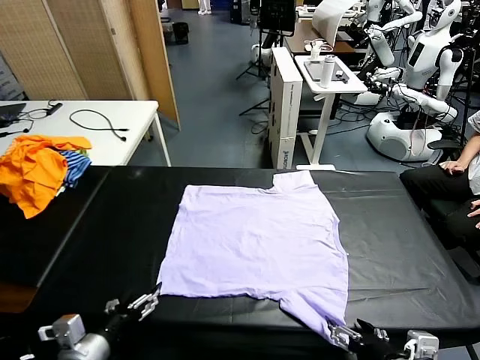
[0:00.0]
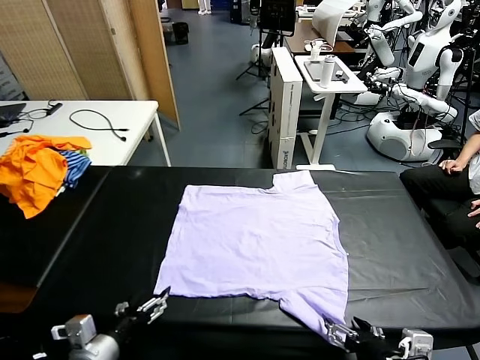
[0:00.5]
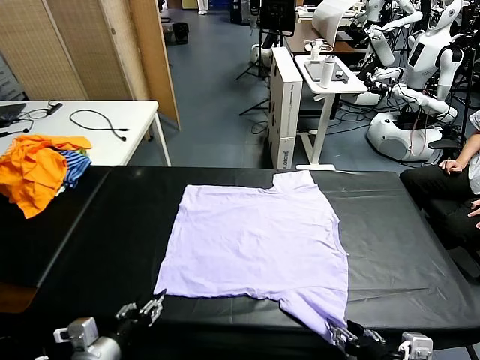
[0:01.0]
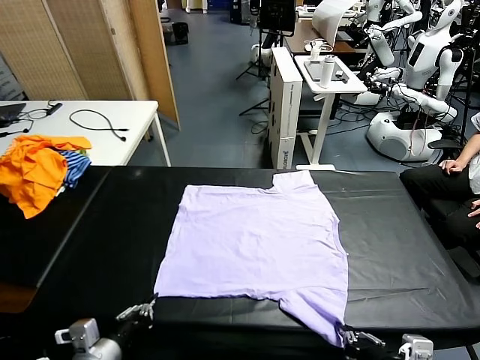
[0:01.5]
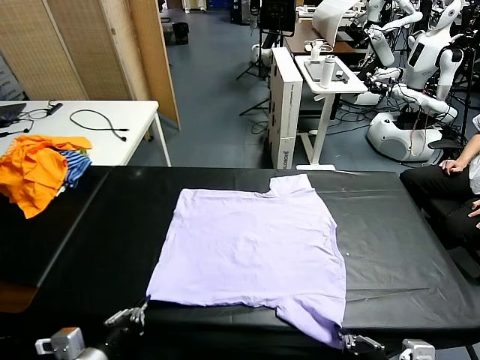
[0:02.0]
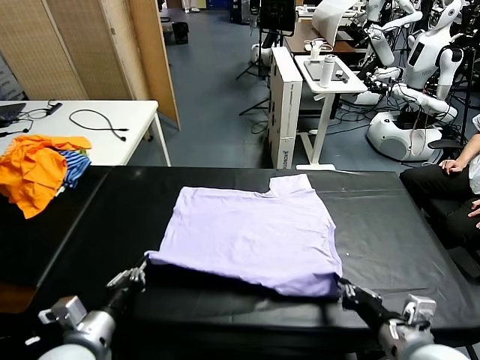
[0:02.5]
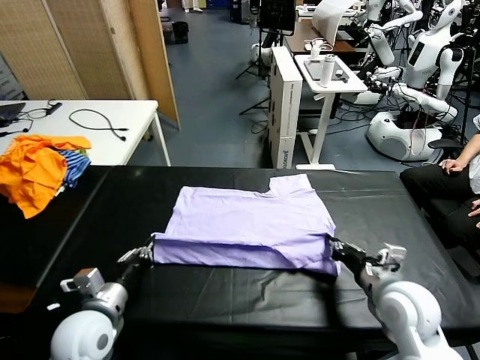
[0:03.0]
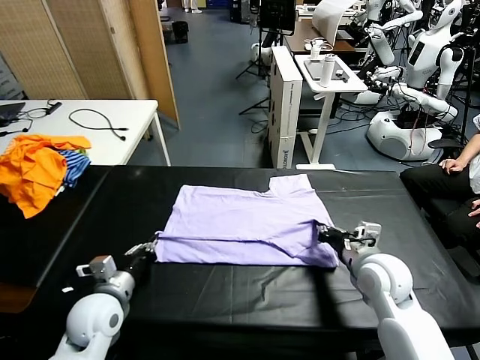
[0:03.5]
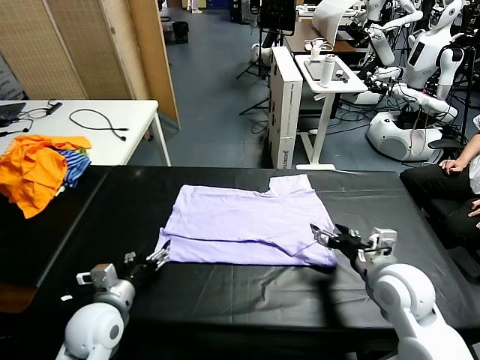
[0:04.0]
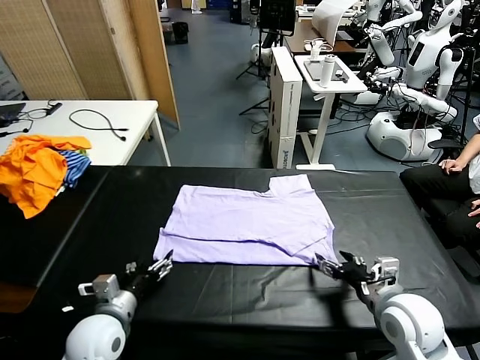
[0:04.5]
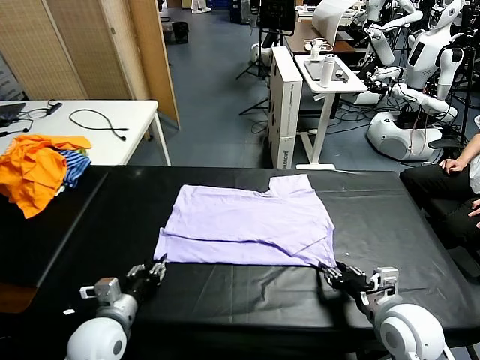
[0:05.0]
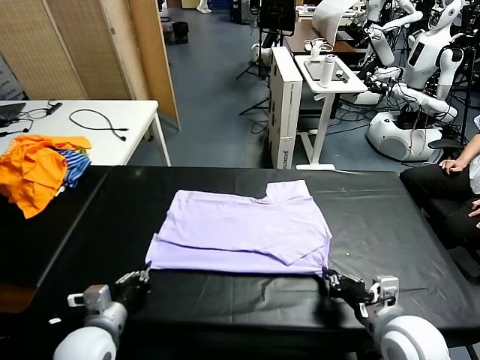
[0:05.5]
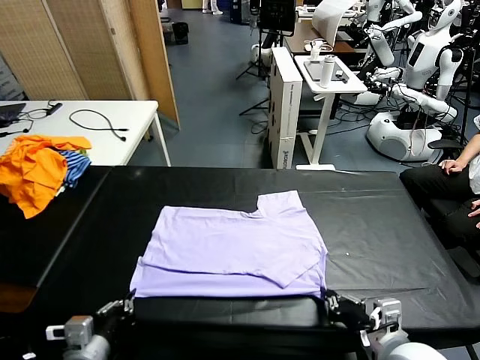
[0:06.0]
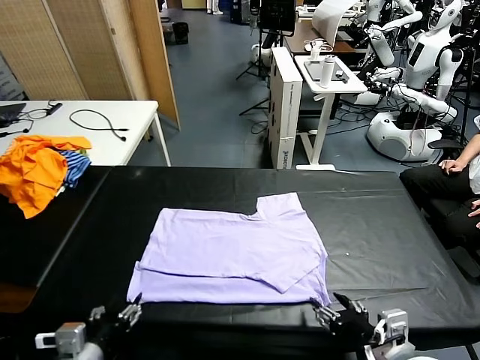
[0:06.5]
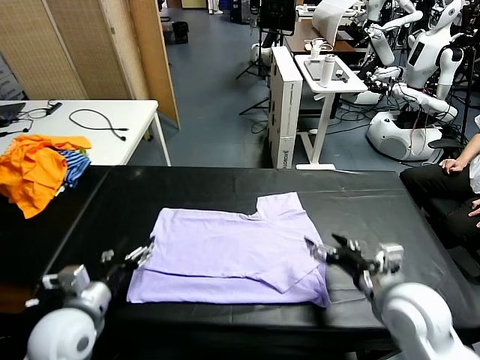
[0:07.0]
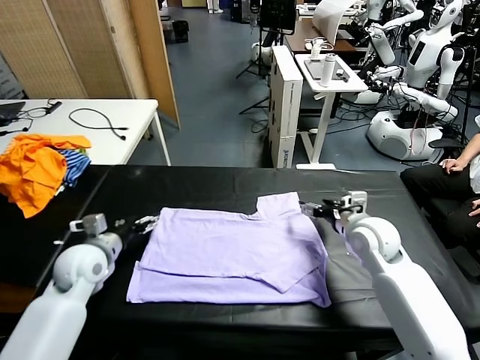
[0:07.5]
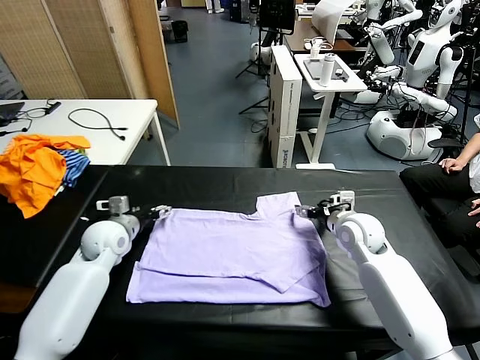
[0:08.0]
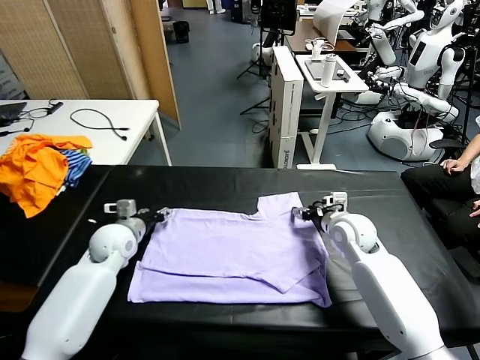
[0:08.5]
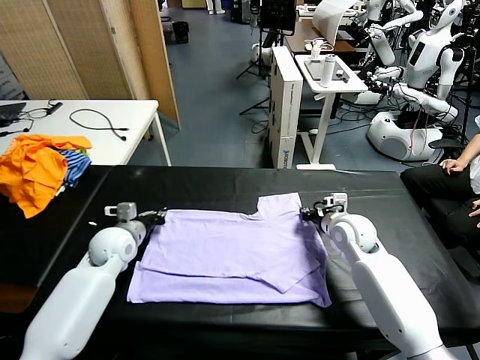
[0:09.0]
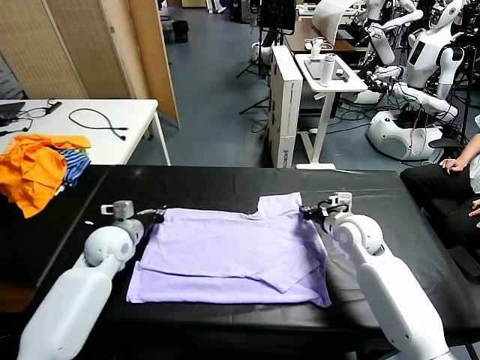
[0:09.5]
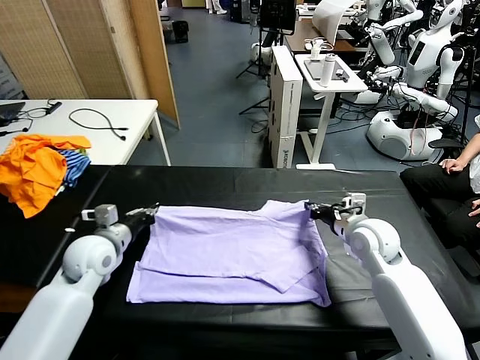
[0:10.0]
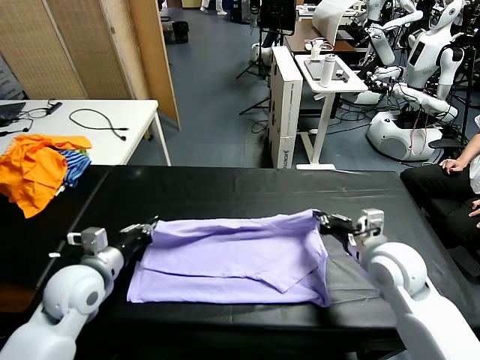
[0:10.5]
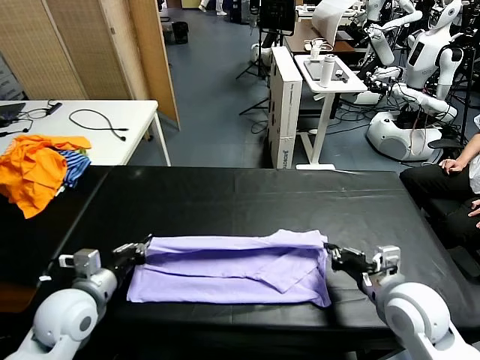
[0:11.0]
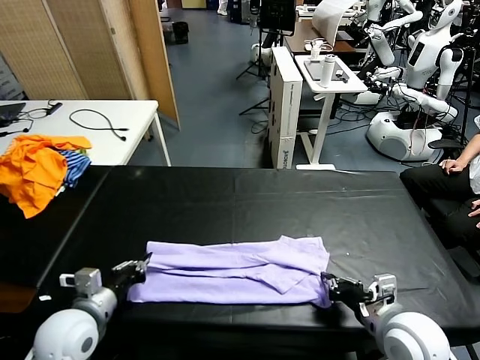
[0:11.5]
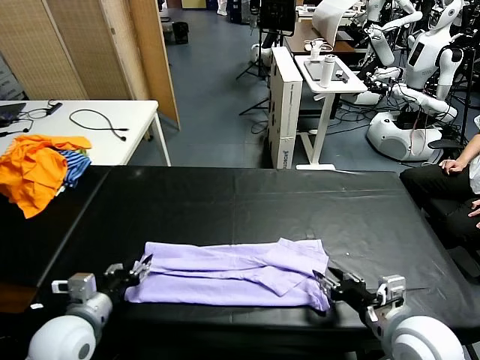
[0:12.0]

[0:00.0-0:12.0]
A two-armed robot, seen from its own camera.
Task of the whole recording: fold and organize the clothes.
Step, 0.0 to 1.5 s: use both grippers simultaneously to clamp the lower edge of the clothing fabric.
Step, 2.0 to 3.5 s: use both grippers to drag the lower edge of the fabric forward and fold it over the upper edge.
Step, 4.0 to 6.5 s: Drag the clothes downward with both gripper.
Step, 7.0 to 9.0 s: use both grippers simultaneously to clamp the upper edge of the clothing fabric.
2.0 to 4.0 s: The left gripper goes approximately 15 cm forward and downward, and opens up. The right gripper goes approximately 15 cm forward, and opens its fingers.
4.0 to 6.0 s: The two grippers go roughly 10 cm backward. The left gripper closes, while the right gripper closes.
6.0 to 8.0 s: Both grippers move forward, approximately 30 cm. The left gripper opens. Meanwhile the right gripper opens its fingers.
8.0 to 10.0 s: The grippers both shift backward by approximately 5 cm. The right gripper closes its fingers. Meanwhile the left gripper closes.
10.0 to 12.0 s: Both grippers move backward, roughly 15 cm. The left gripper opens. Meanwhile the right gripper opens up.

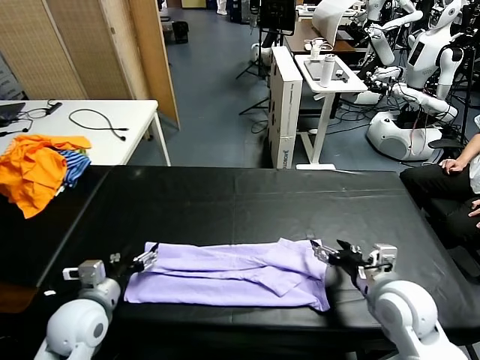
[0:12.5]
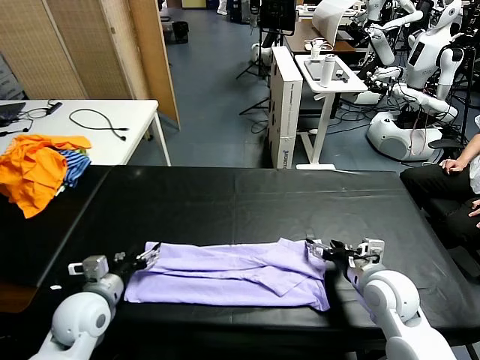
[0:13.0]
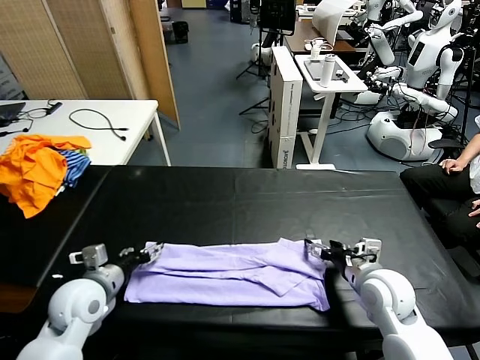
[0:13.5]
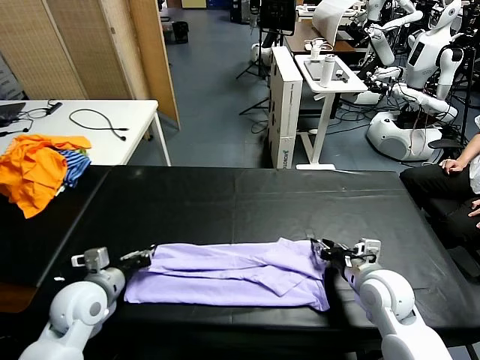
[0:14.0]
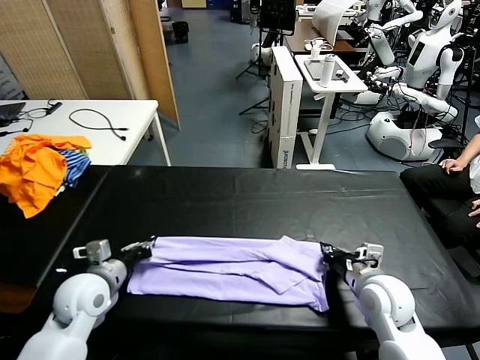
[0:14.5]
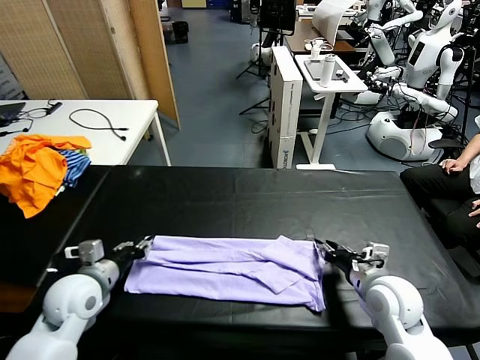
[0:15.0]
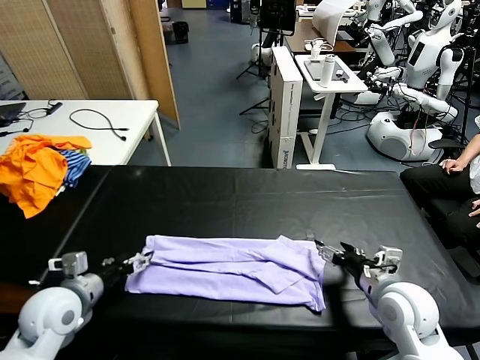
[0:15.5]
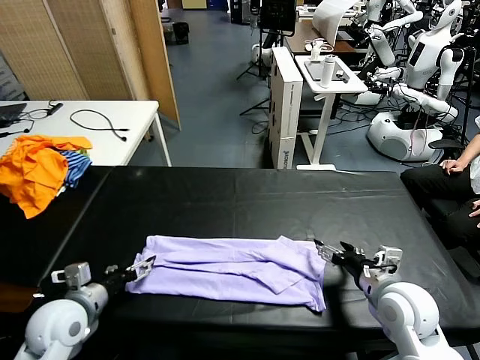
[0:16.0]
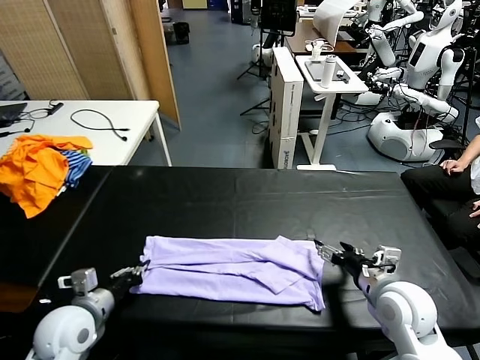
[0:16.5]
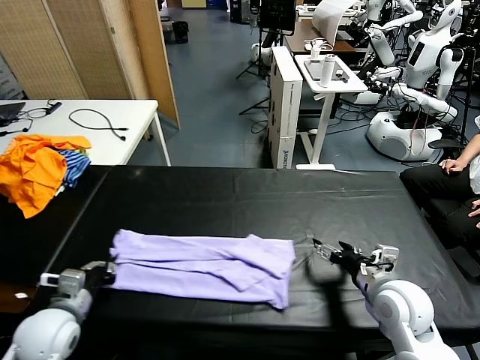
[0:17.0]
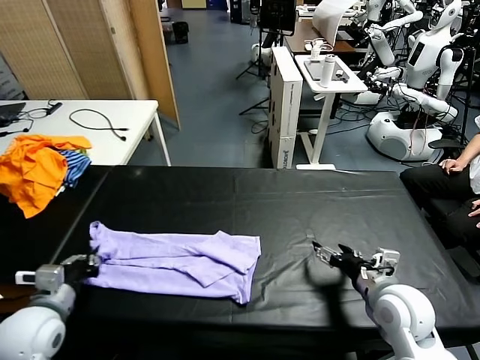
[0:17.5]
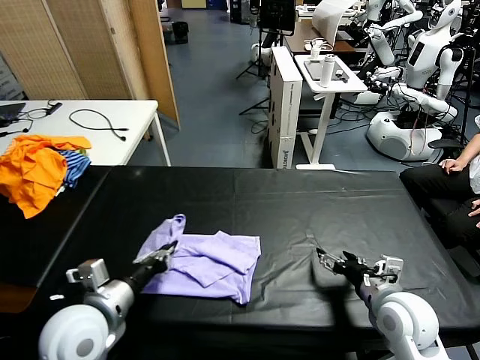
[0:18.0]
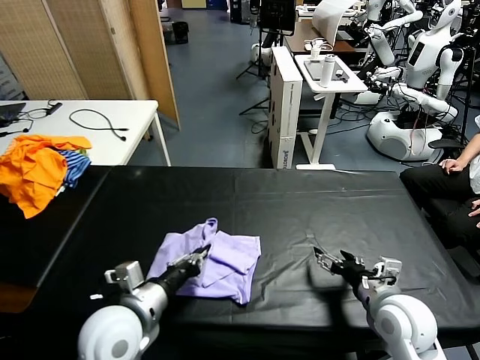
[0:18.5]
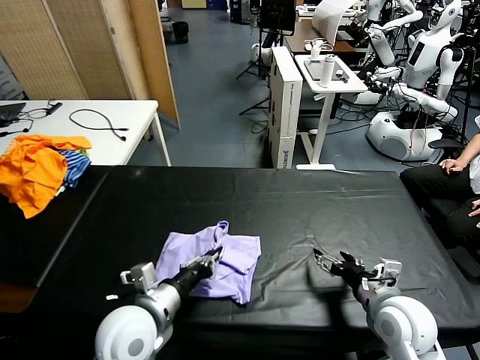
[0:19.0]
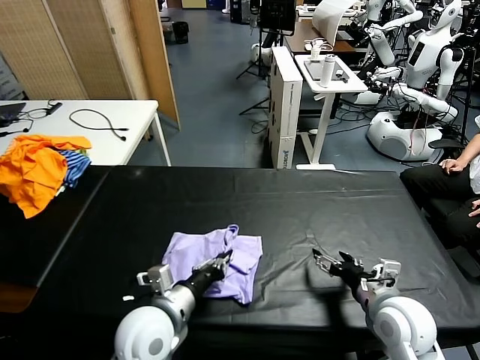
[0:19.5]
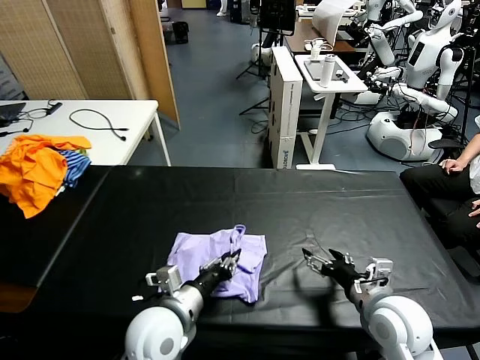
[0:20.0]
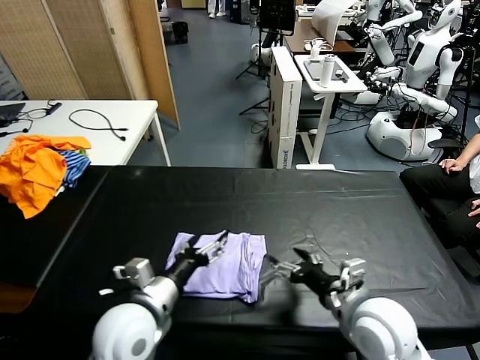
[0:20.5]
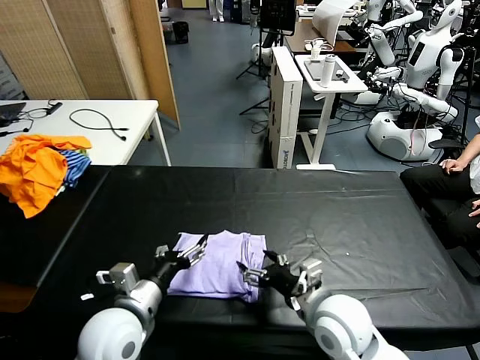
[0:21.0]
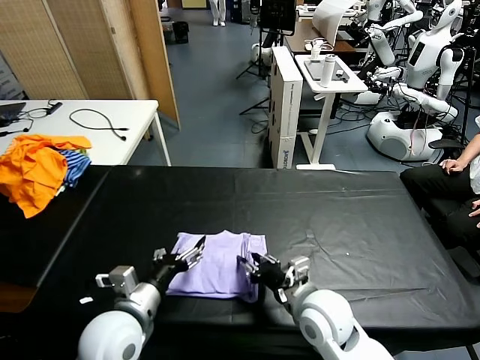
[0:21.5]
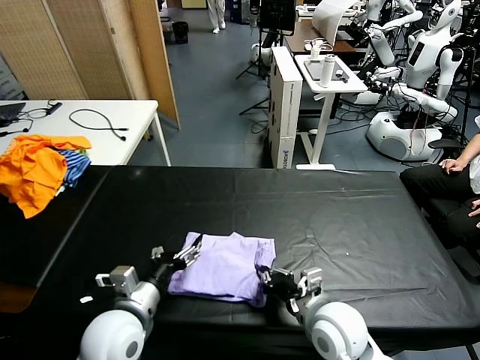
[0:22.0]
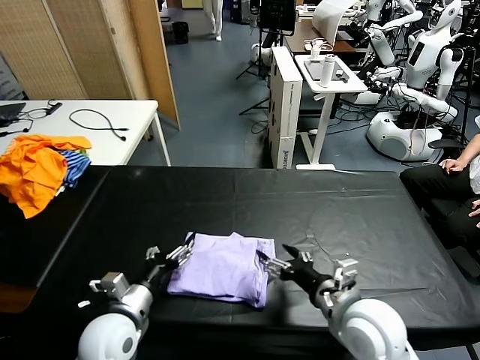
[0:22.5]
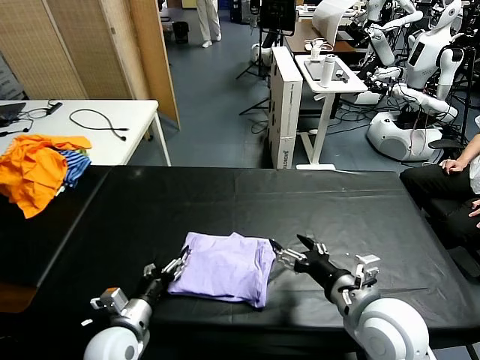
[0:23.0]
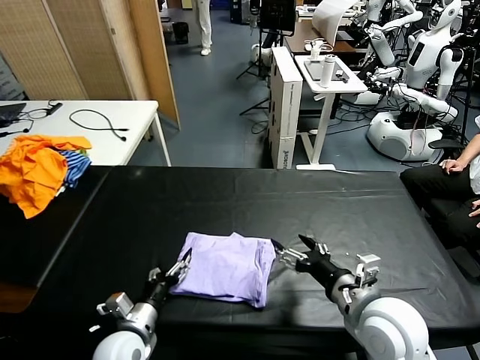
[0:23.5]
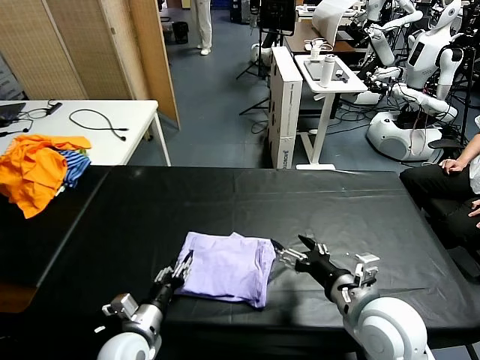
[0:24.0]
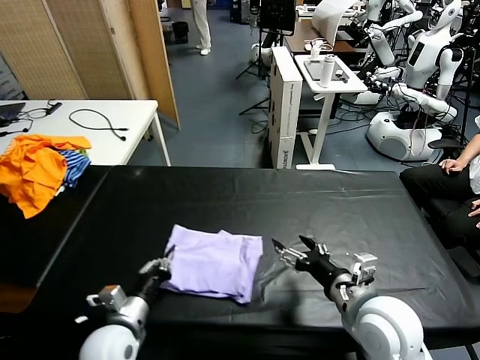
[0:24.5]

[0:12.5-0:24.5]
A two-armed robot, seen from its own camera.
Task of the whole recording: fold and organize the clothes.
Step, 12.5 to 15.0 s: use both grippers to drag the upper edge of the fabric backward and fold it over the lower edge.
Step, 15.5 to 16.5 s: use the left gripper to clamp the left edge of the fabric.
Step, 17.0 to 22.0 s: use the left gripper to drag the left edge of the fabric to the left and folds it over the right edge.
12.5 to 14.5 s: The left gripper closes up, while the right gripper closes its fingers.
14.5 to 16.5 s: The left gripper moves backward, approximately 5 cm, and opens and closes again; the right gripper opens its fingers.
16.5 to 18.5 s: The left gripper shifts approximately 15 cm to the right and upward.
18.5 to 20.5 s: The left gripper opens. Meanwhile the right gripper goes roughly 10 cm to the left.
20.5 to 22.5 s: The right gripper closes and opens again. Meanwhile the left gripper moves downward and to the left, some 10 cm.
22.5 to 24.5 s: The left gripper closes.

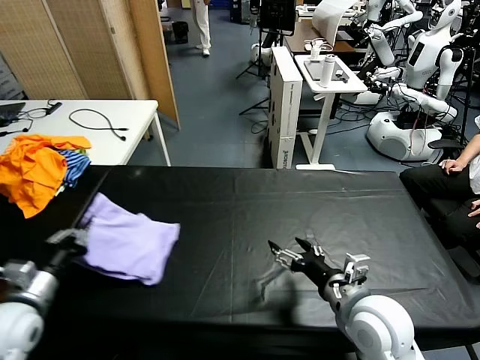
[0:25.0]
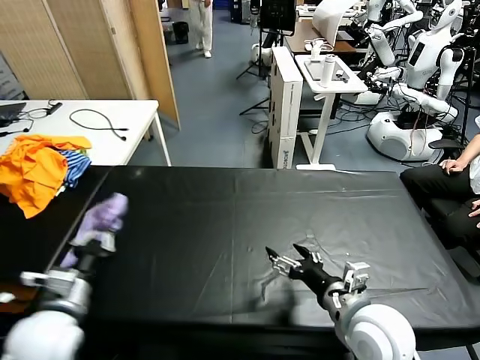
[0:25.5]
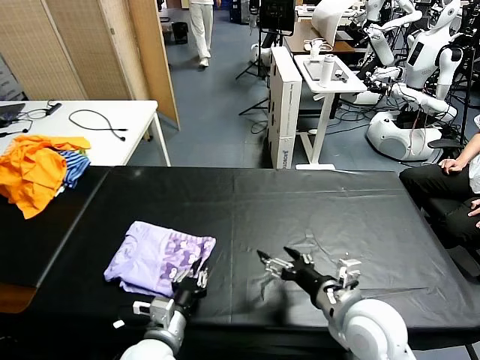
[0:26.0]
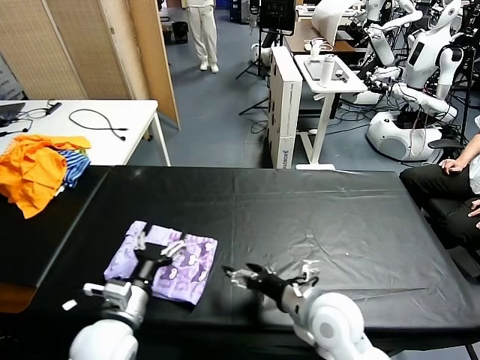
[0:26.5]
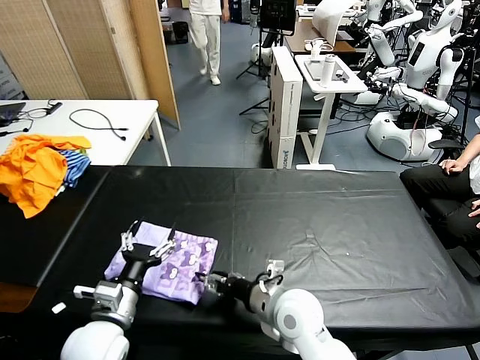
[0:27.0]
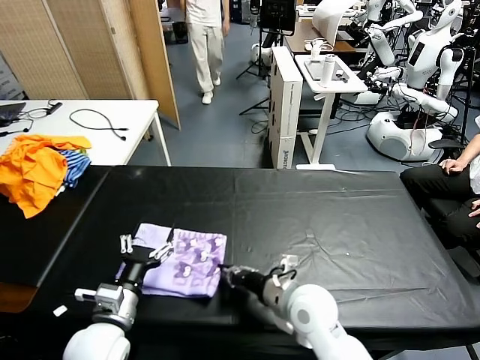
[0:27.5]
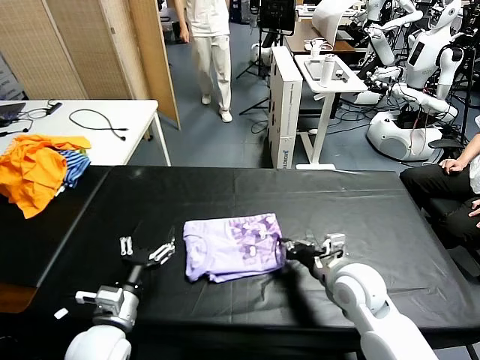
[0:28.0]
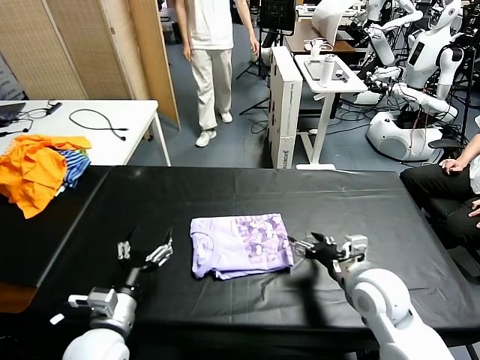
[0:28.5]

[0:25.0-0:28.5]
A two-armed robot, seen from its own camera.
Task of the whole recording: fold and organize the clothes.
Step, 26.5 to 28.0 s: Drag the clothes to the center of the table.
25.0 to 27.0 s: The left gripper is displaced to the right by roughly 15 cm, and opens up, while the right gripper travels to the left and downward by some 15 cm.
27.0 to 28.5 s: The right gripper moves to the right, approximately 15 cm, and closes and opens again.
